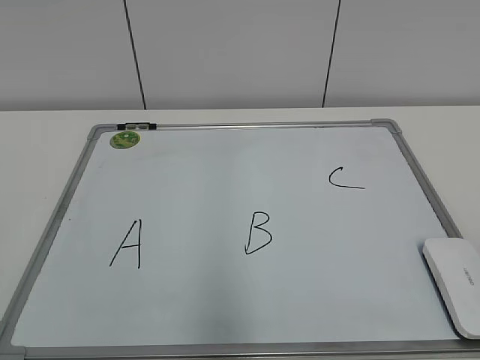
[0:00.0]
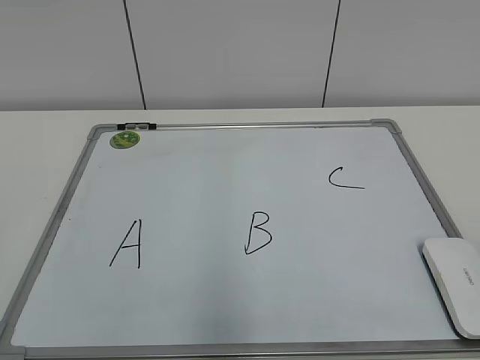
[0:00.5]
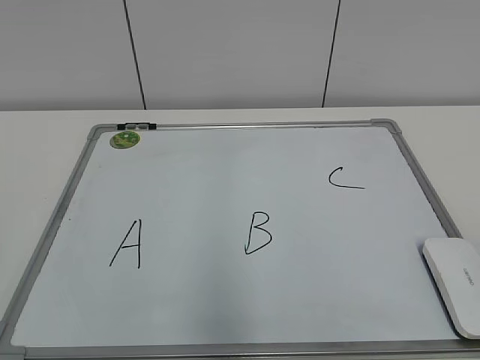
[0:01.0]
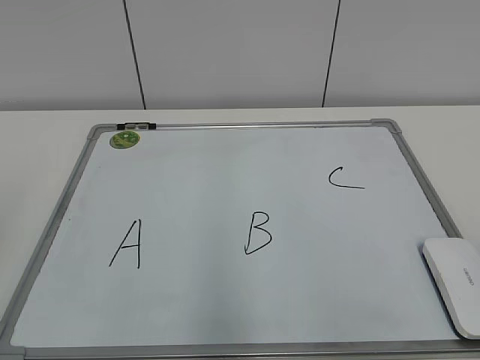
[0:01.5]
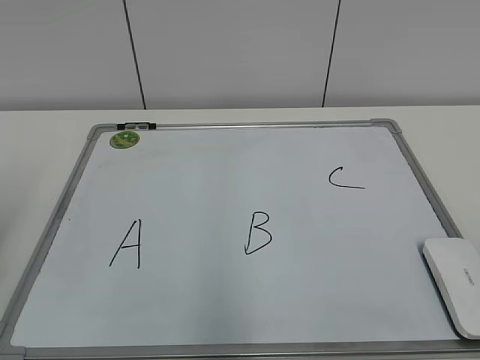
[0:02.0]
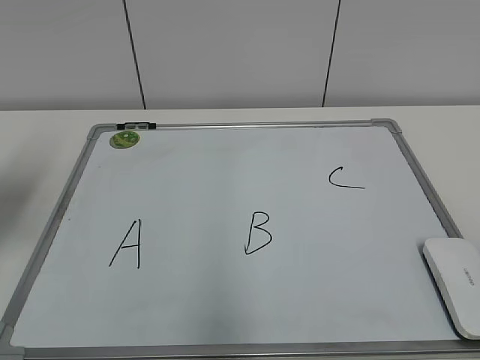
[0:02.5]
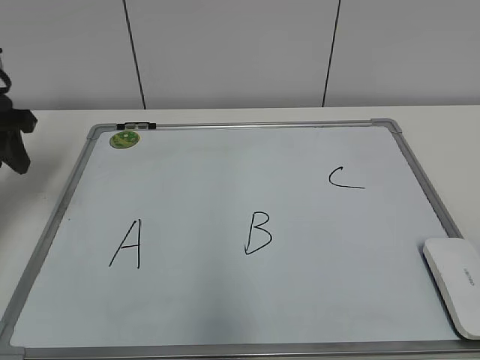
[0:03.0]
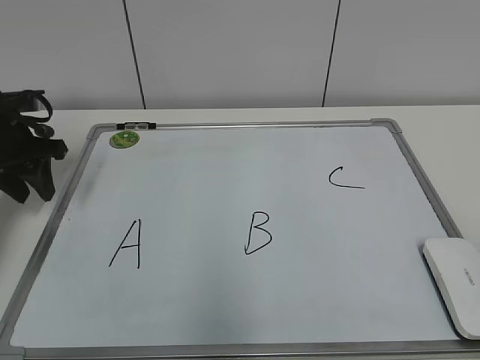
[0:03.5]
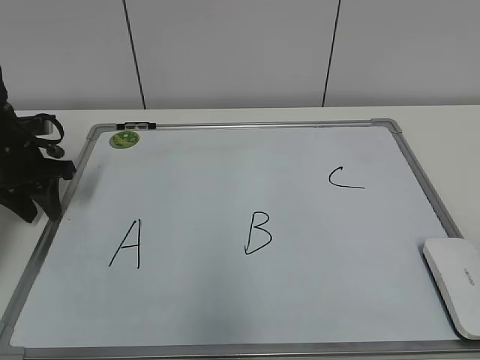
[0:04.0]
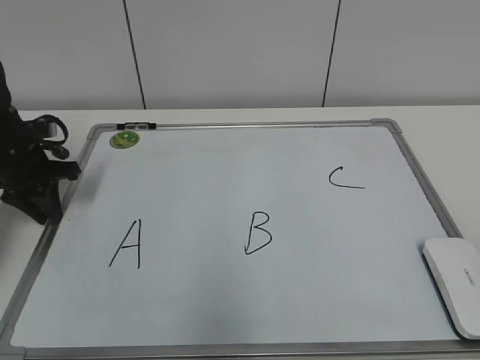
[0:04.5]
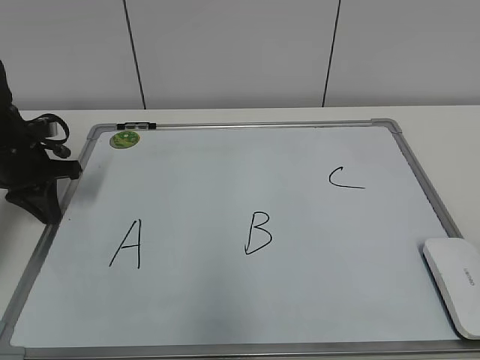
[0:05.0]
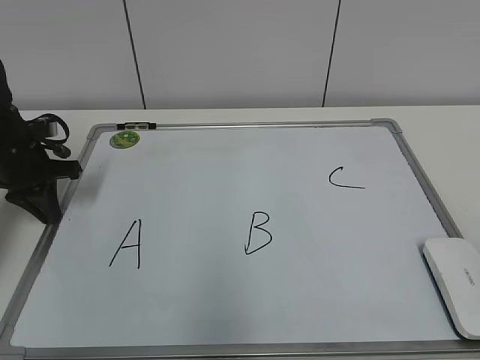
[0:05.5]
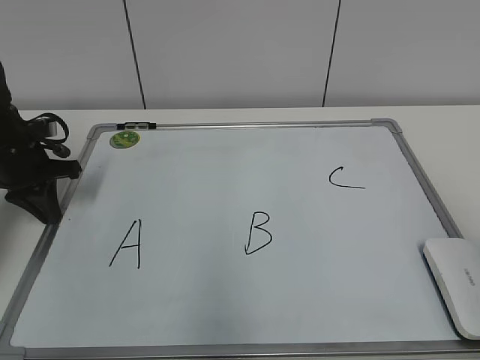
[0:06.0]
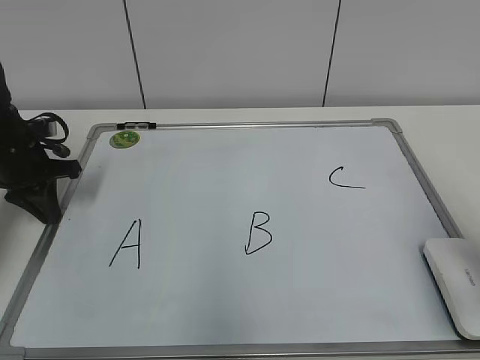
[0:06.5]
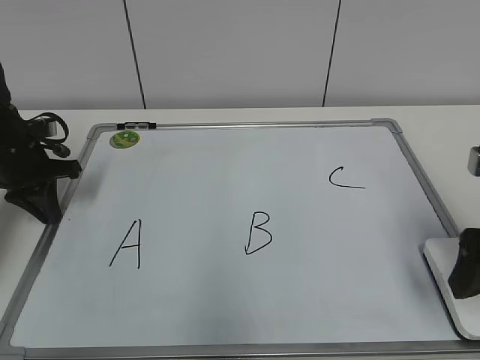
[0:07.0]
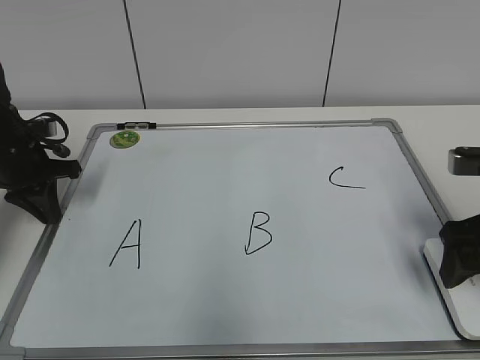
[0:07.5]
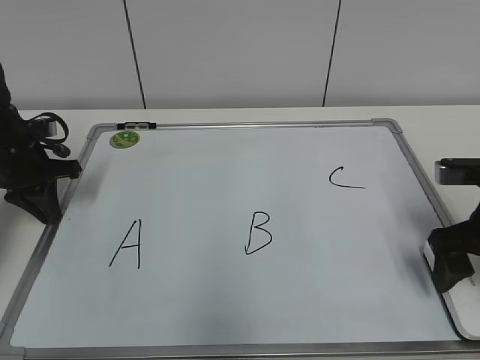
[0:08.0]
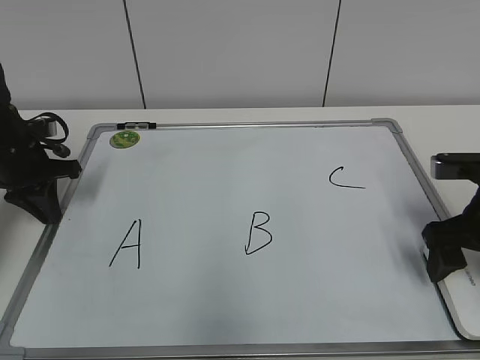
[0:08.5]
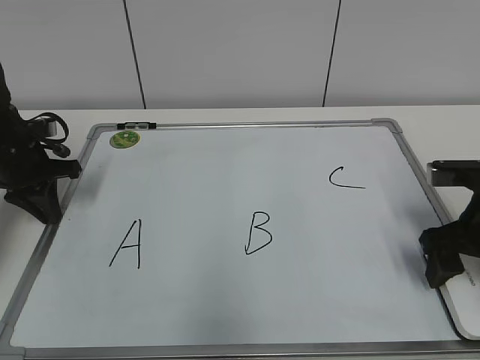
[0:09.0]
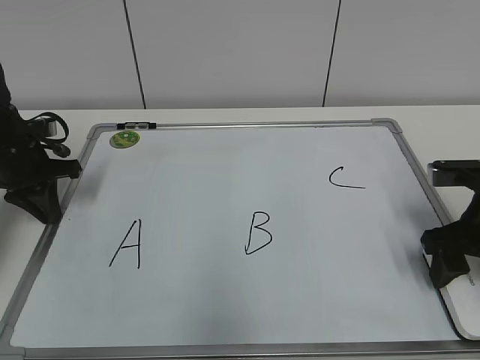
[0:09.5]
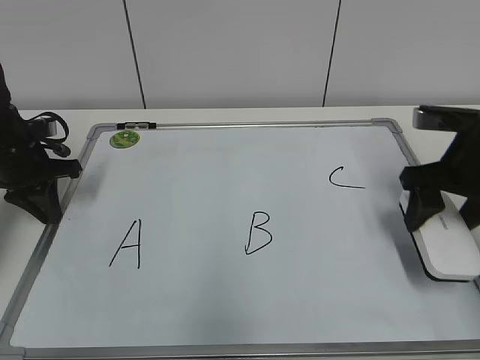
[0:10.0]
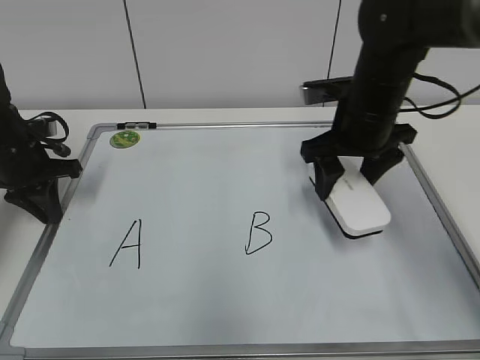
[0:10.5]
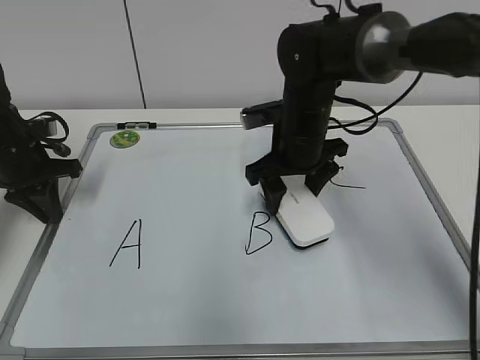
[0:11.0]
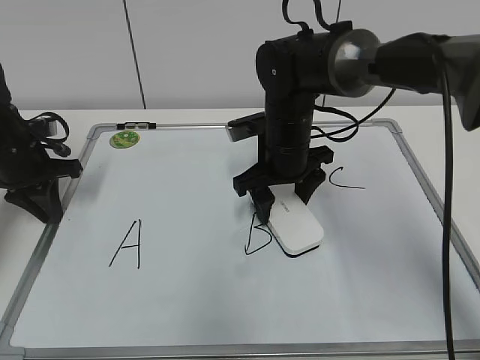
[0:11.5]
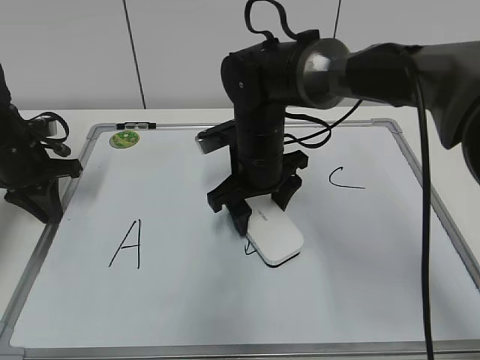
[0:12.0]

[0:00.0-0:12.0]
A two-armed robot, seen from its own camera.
Task of the whole recording: pick up the eraser on the blackboard and erase the letter "B".
Step, 0:00.0 to 0:05.0: Hold the drawing board steady with your left hand.
Step, 0:05.5 to 0:09.5: Grab the eraser with your right hand.
0:02.0 to 0:04.0: The left gripper is displaced forward and downward by about 25 cm.
0:04.0 to 0:06.0: The left gripper closes.
0:06.0 to 0:08.0: The right gripper is displaced forward and downward by approximately 25 cm, and opens its fingers.
0:08.0 to 0:10.0: The right gripper moves about 5 cm, and closes up.
0:10.0 to 0:12.0: The right gripper travels to the left by roughly 25 cm.

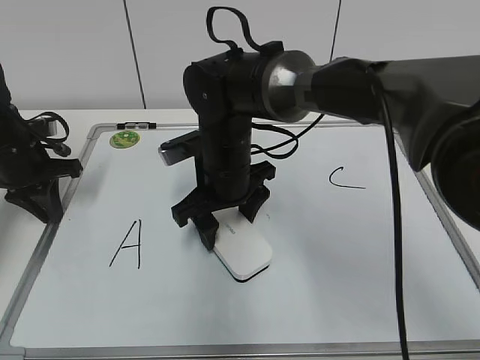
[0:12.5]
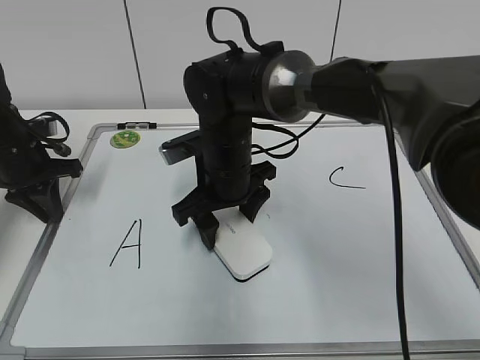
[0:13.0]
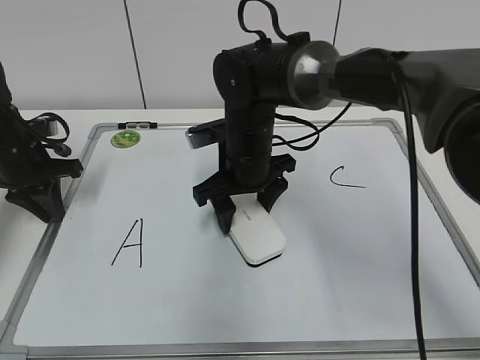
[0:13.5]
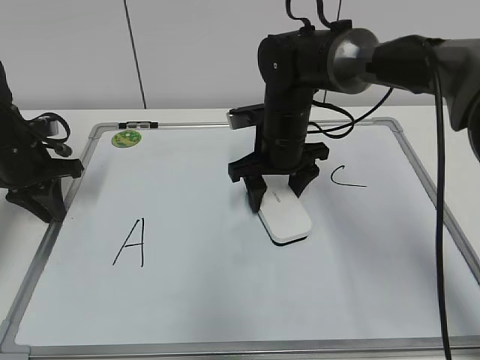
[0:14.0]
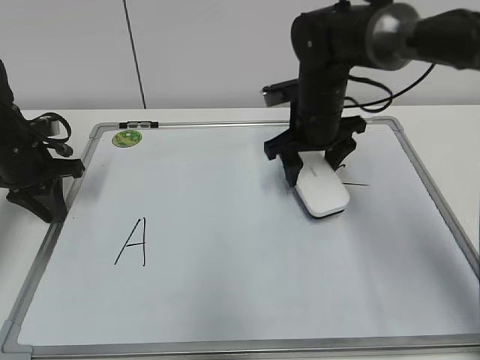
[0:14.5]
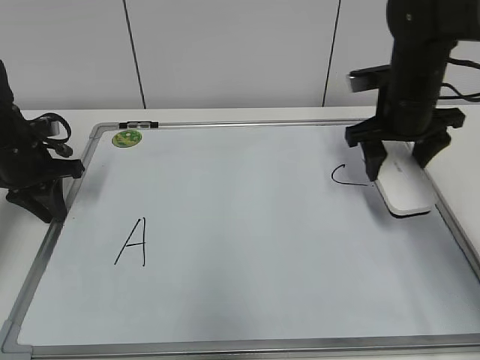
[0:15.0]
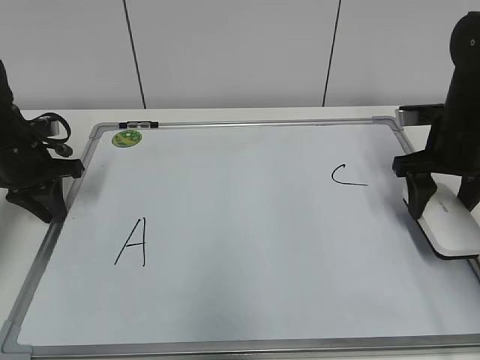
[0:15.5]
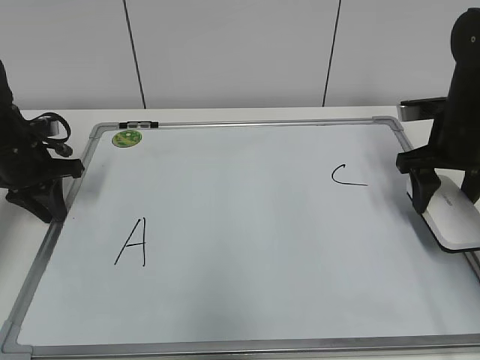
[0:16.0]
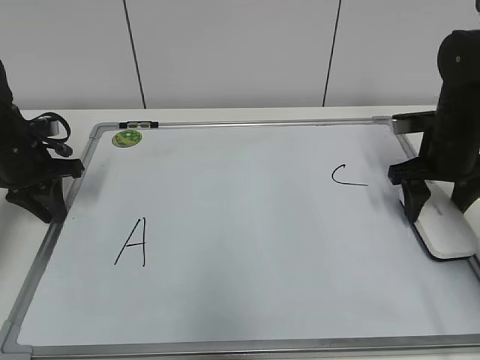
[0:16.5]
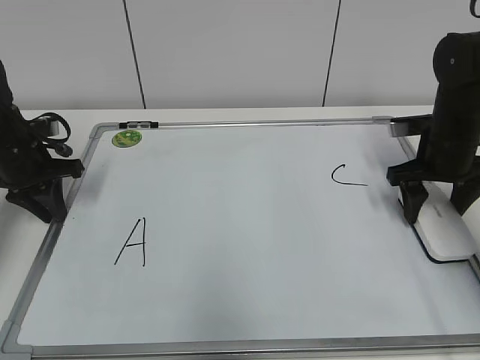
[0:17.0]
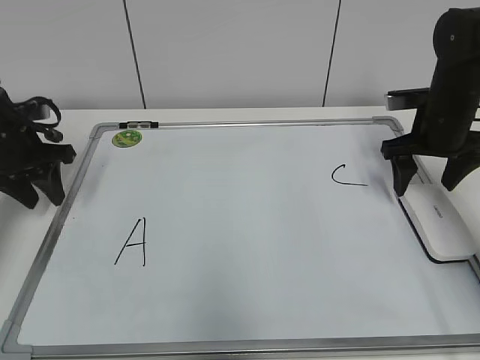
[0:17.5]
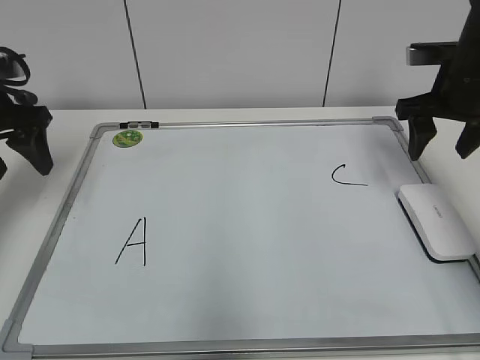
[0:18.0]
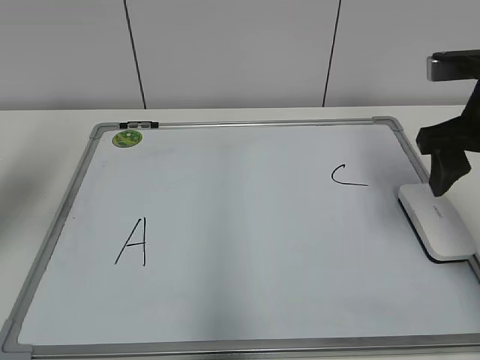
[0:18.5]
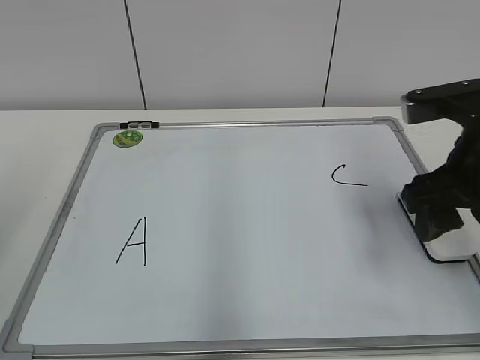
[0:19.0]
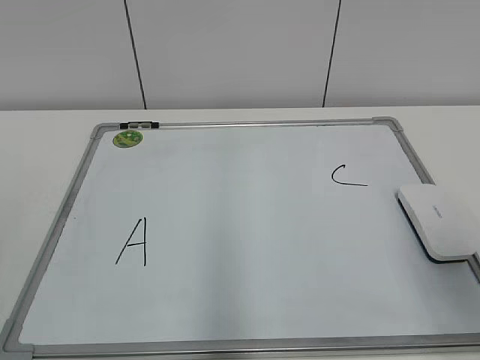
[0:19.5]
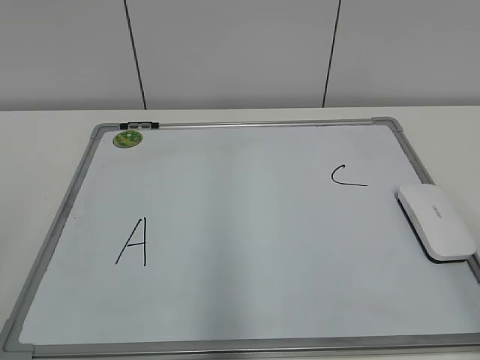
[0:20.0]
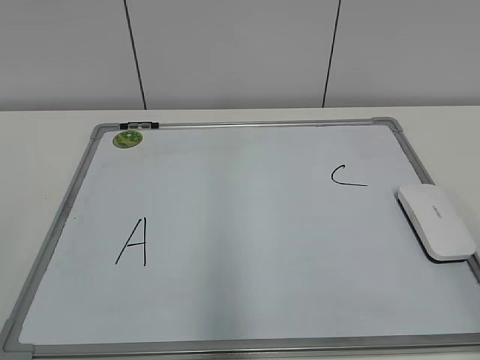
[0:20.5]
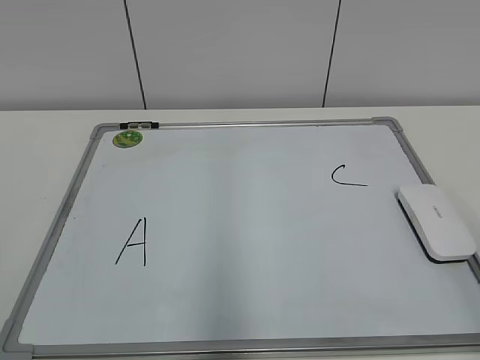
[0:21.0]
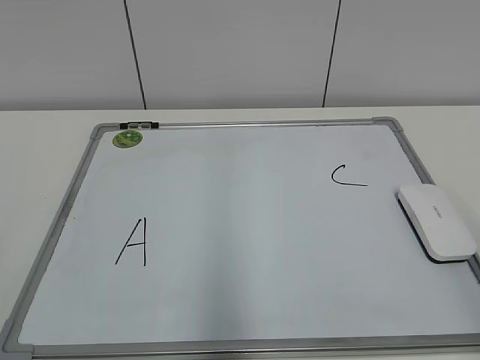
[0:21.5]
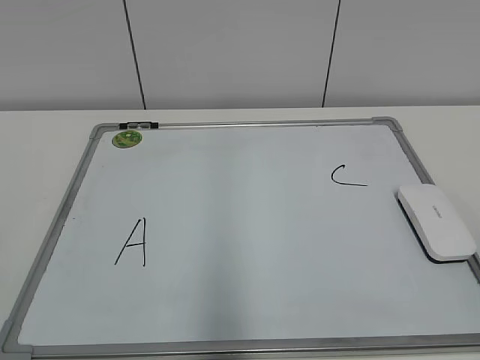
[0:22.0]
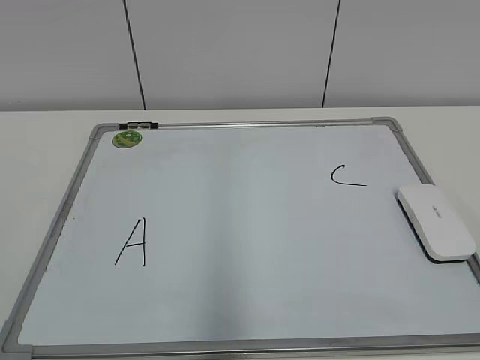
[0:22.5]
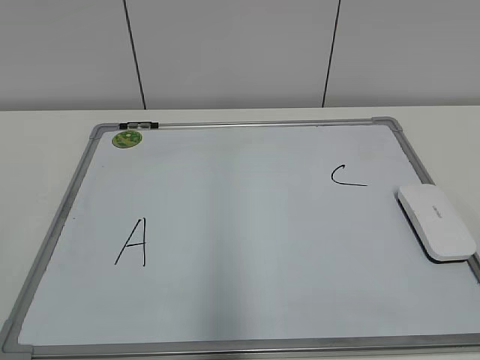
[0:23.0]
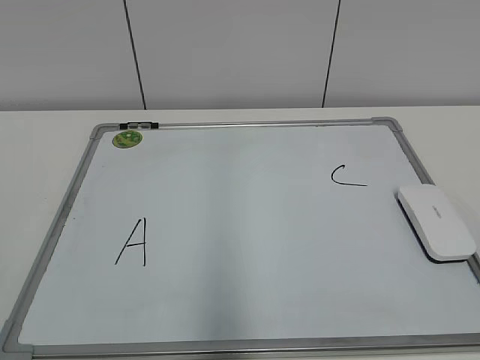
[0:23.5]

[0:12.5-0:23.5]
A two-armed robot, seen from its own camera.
Task of the whole recording: pick up the eraser on the blackboard and erase the letter "B".
Step, 0:14.5 to 0:17.0: Put down the eraser with your right hand.
0:12.5 to 0:14.5: The right gripper moves to the right and forward, roughly 15 cm.
0:14.5 to 0:16.0: The right gripper travels to the right by approximately 15 cm.
0:16.0 to 0:18.0: The left gripper shifts some 10 cm upward, and opens its fingers. The right gripper is displaced upward by approximately 5 cm.
0:18.0 to 0:20.0: The two grippers go some 35 cm backward.
